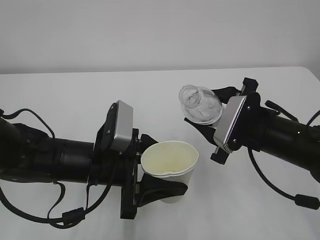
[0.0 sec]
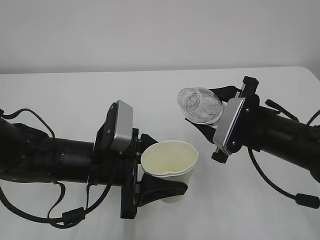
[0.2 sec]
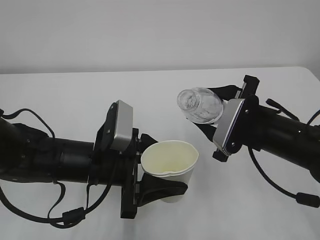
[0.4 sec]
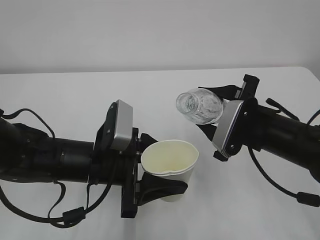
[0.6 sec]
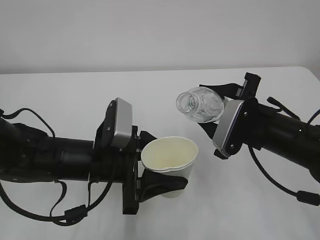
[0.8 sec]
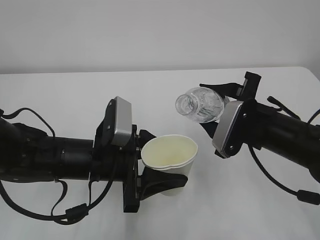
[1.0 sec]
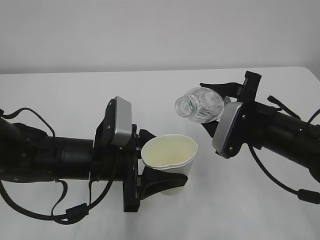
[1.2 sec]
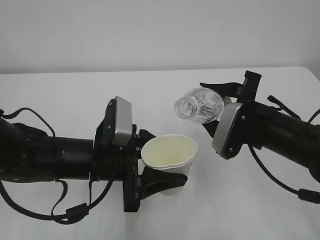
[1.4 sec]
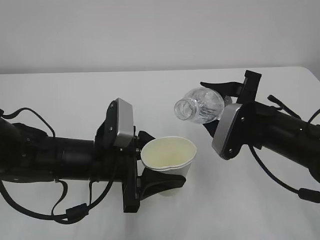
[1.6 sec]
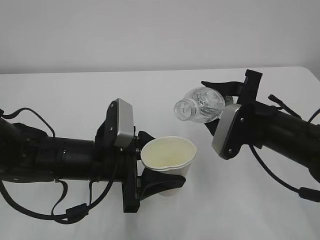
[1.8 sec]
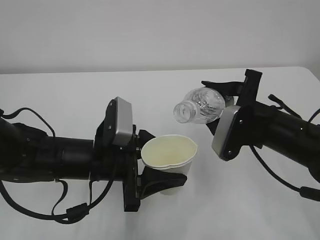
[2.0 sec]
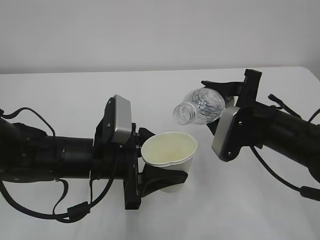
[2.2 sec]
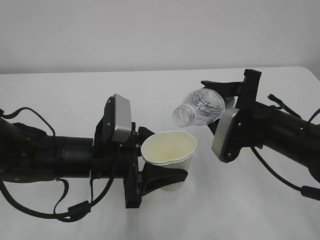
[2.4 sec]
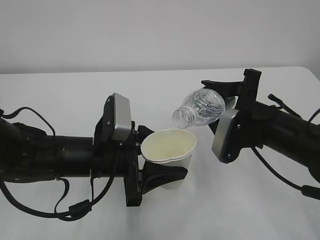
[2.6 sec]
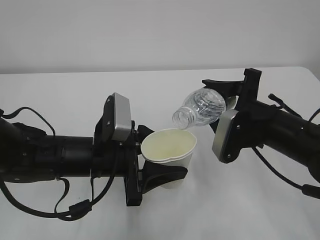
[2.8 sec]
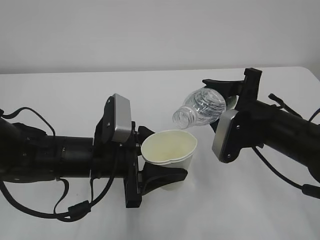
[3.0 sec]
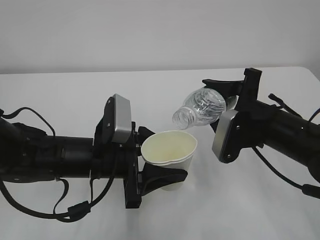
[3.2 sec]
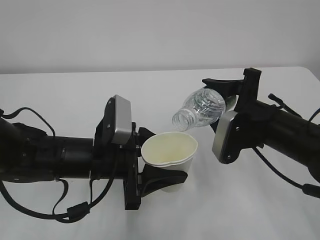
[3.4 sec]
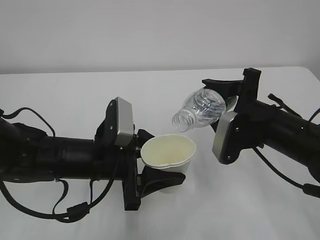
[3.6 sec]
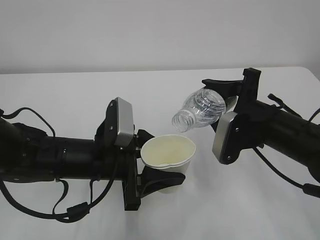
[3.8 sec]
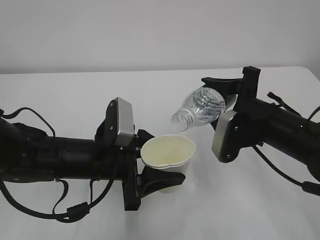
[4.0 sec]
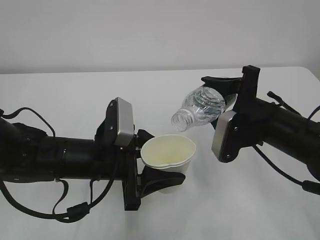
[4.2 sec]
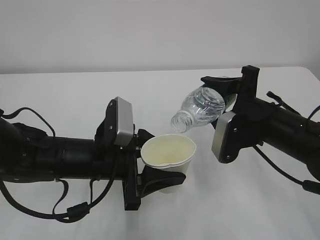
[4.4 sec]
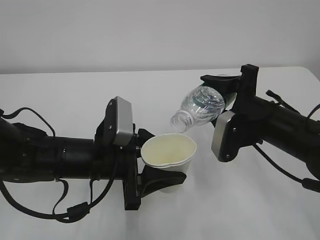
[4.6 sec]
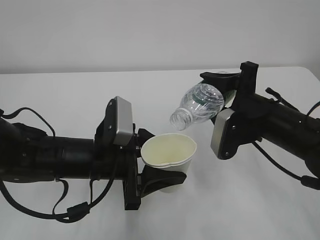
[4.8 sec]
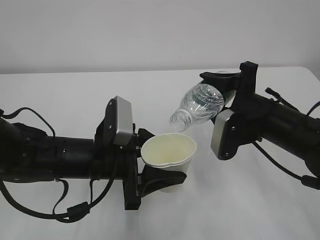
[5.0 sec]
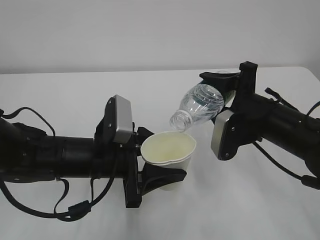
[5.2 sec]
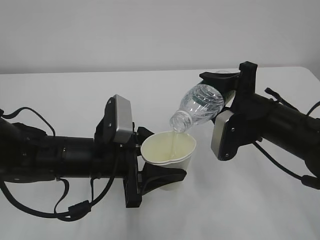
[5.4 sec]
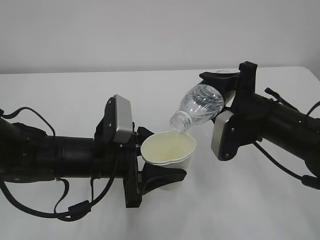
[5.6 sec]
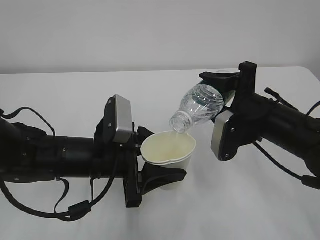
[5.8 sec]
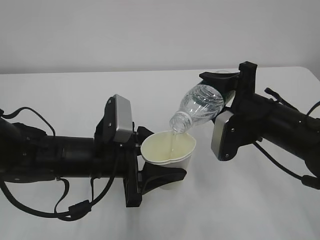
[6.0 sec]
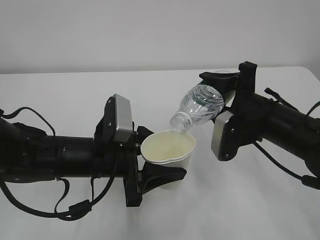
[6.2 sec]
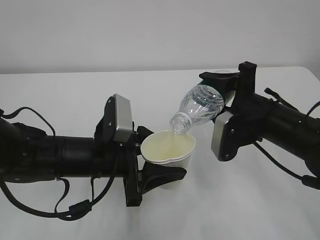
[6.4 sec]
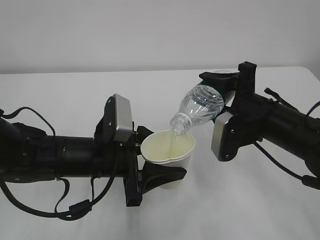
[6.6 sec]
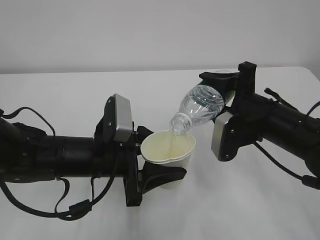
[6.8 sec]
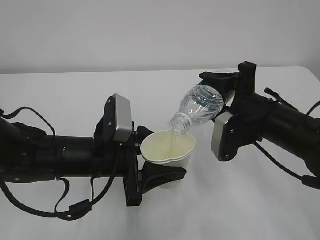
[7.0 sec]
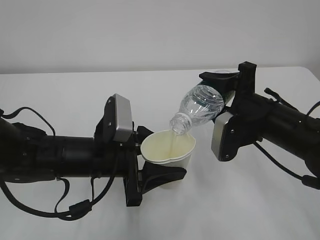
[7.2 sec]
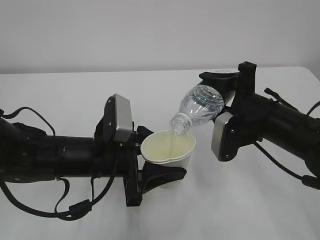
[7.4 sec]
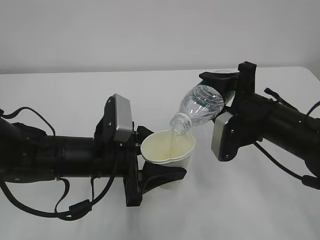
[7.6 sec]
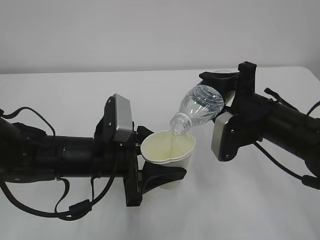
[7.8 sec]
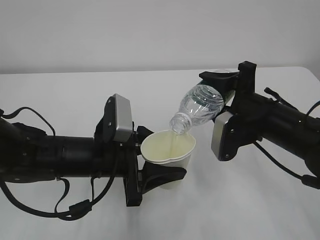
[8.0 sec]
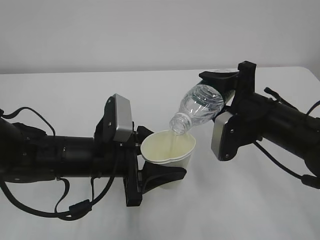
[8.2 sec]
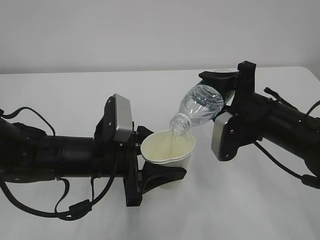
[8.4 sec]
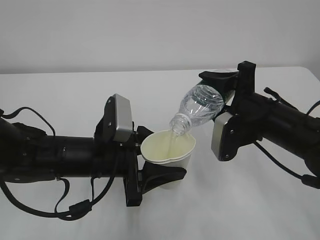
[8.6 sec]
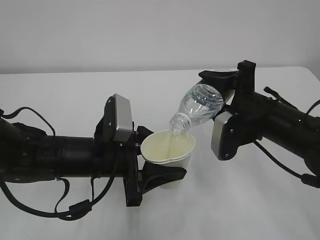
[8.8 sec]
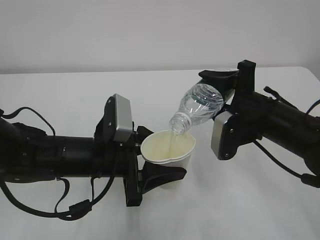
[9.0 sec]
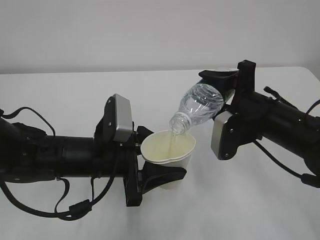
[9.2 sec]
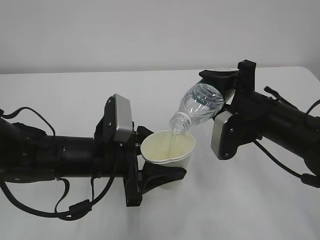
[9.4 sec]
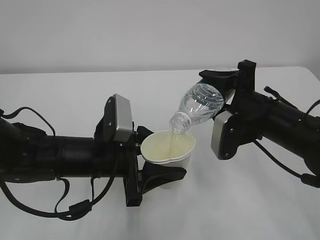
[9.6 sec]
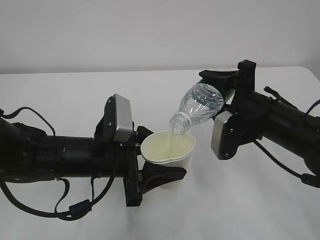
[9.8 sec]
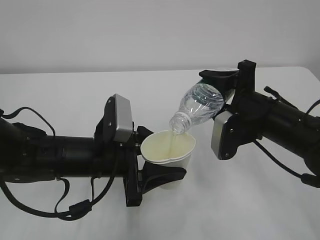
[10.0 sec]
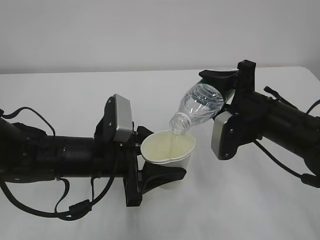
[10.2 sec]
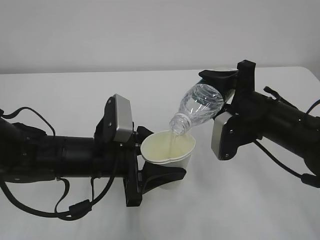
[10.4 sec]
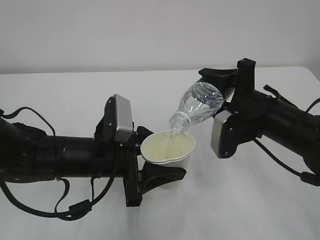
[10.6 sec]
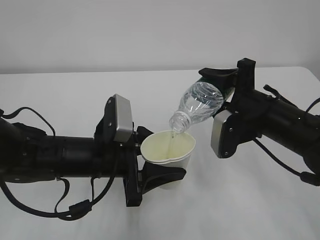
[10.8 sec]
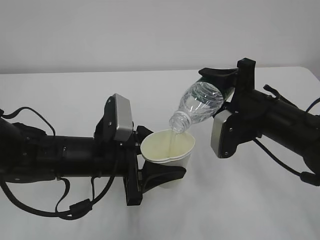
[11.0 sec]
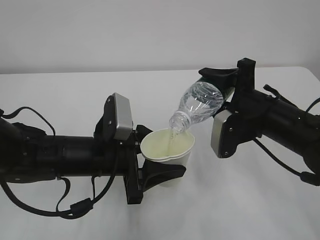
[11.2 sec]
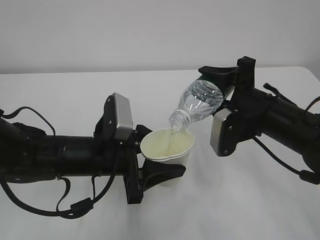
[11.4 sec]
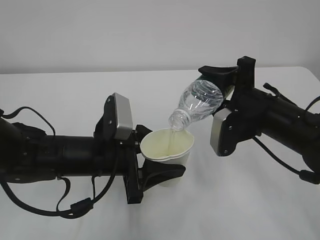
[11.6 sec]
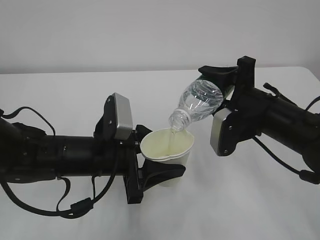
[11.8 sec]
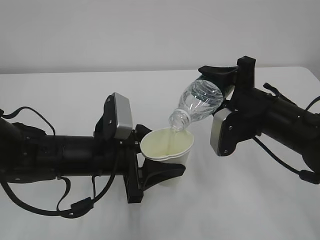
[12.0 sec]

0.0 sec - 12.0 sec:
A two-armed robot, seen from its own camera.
0.0 sec - 1.6 sec: The grippers move only a little.
1.6 sec - 4.4 sec: The grippers move only a little.
4.4 sec - 6.0 sec: The grippers stay close to where they were, moving slightly.
6.0 sec - 12.0 sec: Both grippers stay about where they are.

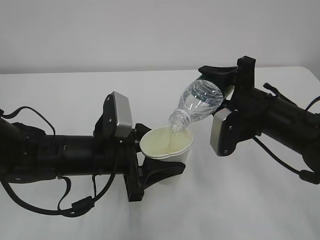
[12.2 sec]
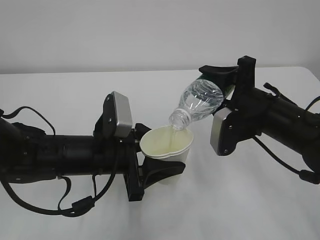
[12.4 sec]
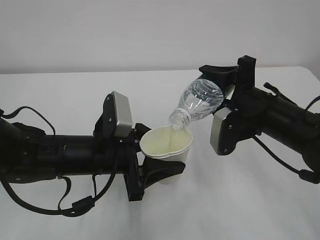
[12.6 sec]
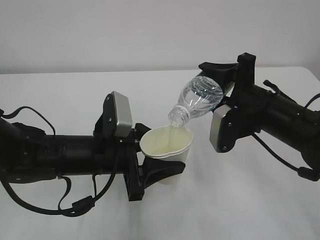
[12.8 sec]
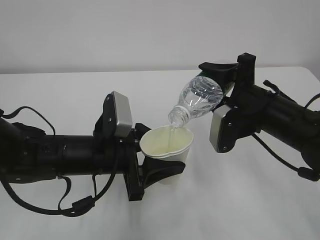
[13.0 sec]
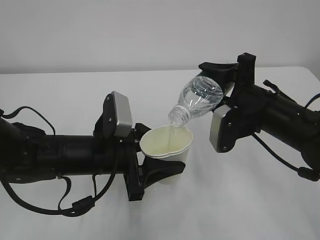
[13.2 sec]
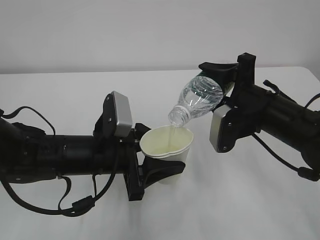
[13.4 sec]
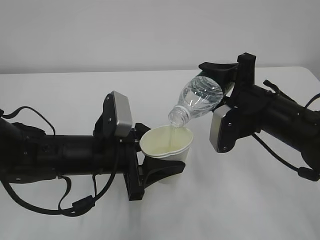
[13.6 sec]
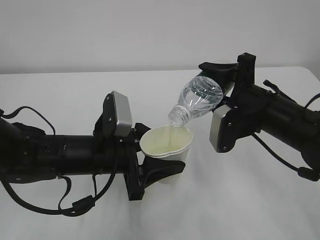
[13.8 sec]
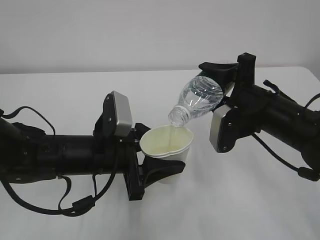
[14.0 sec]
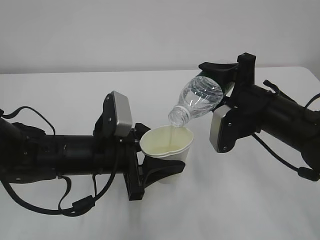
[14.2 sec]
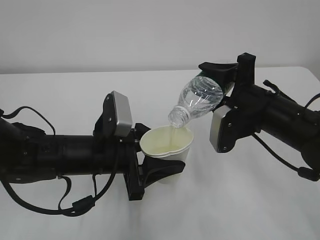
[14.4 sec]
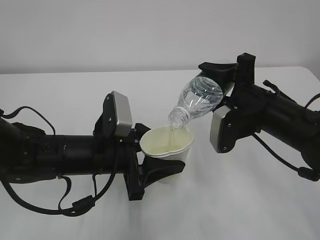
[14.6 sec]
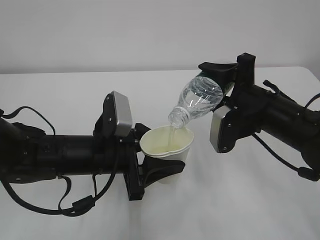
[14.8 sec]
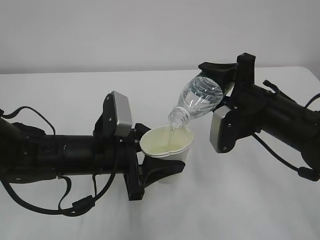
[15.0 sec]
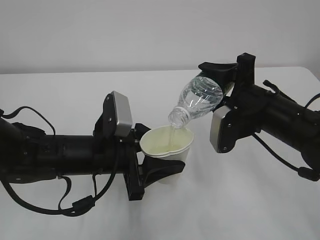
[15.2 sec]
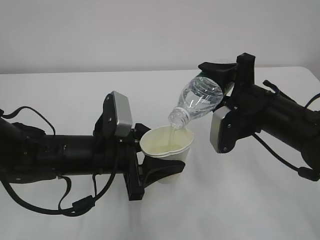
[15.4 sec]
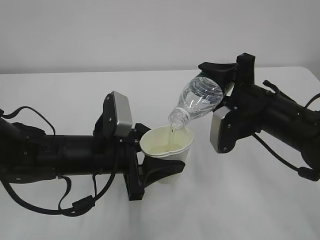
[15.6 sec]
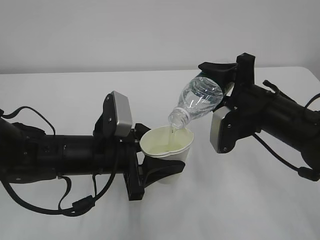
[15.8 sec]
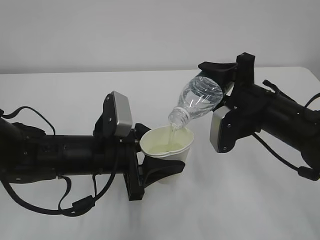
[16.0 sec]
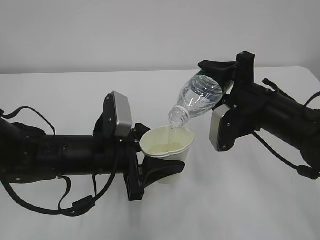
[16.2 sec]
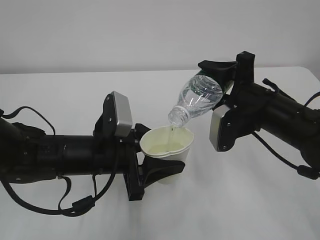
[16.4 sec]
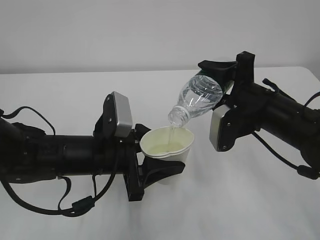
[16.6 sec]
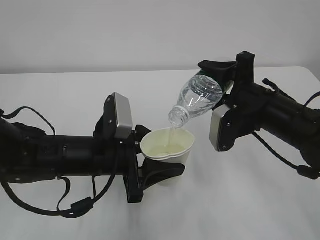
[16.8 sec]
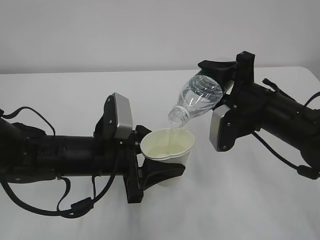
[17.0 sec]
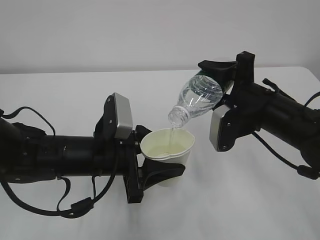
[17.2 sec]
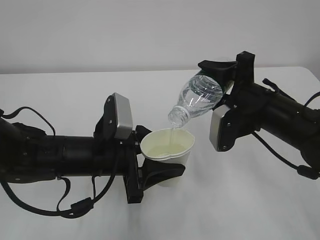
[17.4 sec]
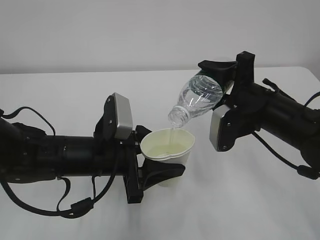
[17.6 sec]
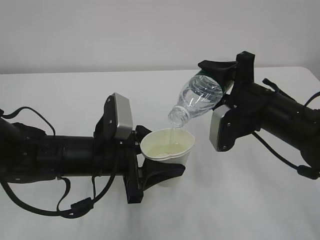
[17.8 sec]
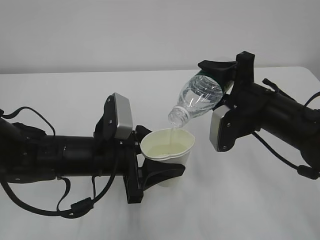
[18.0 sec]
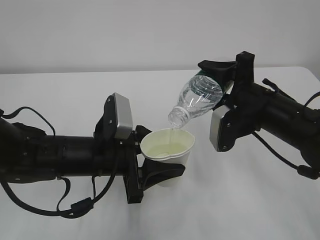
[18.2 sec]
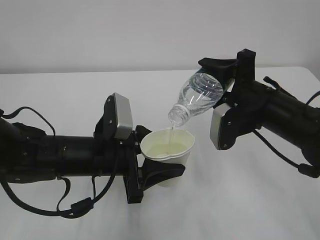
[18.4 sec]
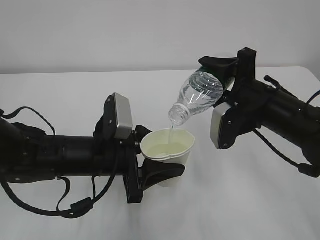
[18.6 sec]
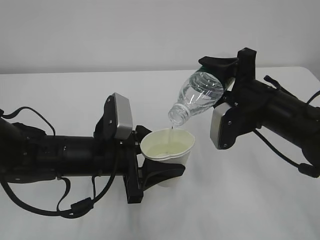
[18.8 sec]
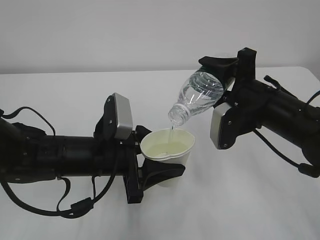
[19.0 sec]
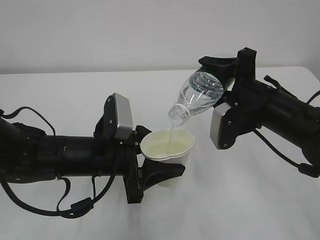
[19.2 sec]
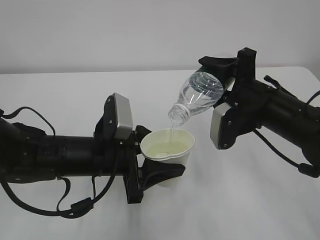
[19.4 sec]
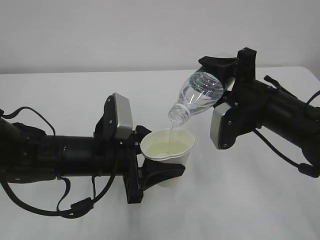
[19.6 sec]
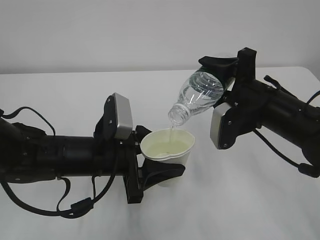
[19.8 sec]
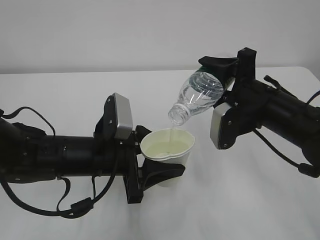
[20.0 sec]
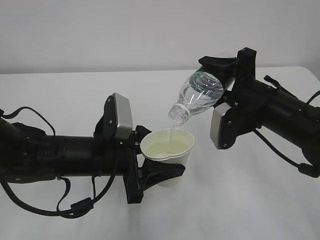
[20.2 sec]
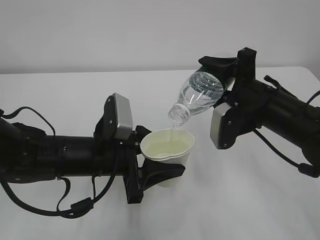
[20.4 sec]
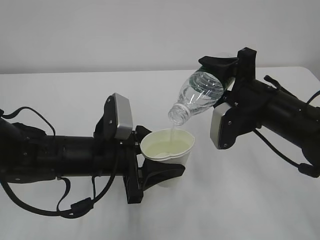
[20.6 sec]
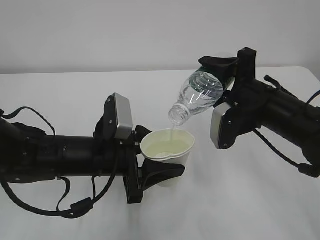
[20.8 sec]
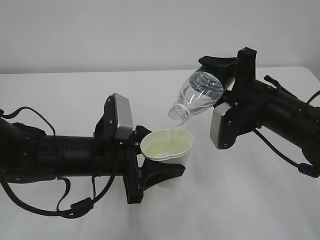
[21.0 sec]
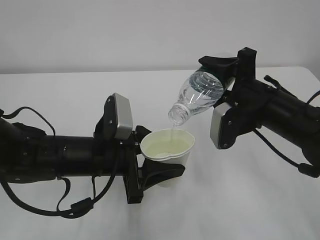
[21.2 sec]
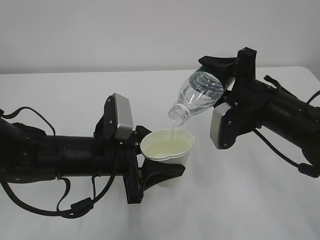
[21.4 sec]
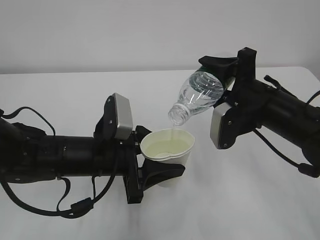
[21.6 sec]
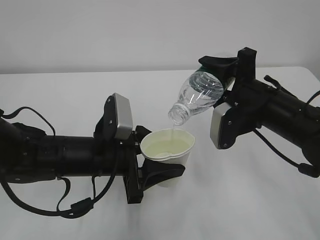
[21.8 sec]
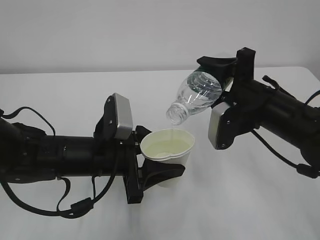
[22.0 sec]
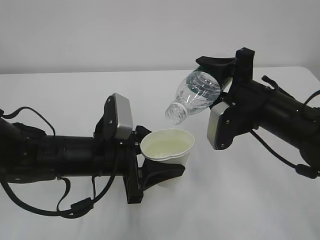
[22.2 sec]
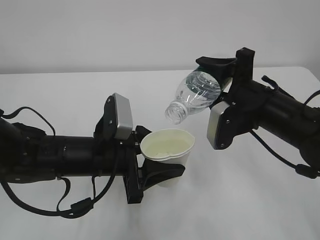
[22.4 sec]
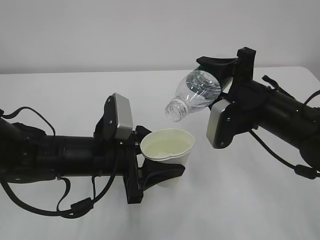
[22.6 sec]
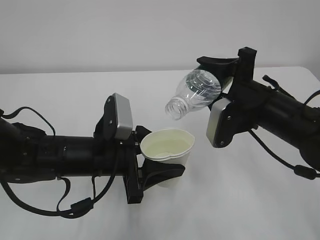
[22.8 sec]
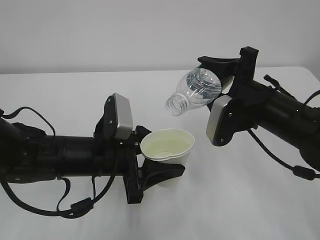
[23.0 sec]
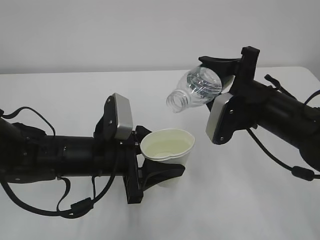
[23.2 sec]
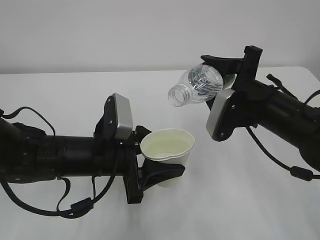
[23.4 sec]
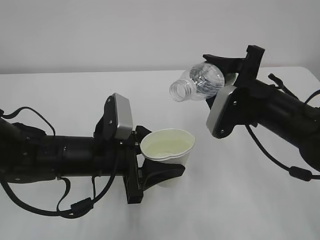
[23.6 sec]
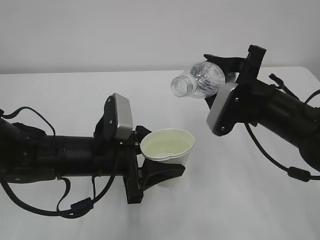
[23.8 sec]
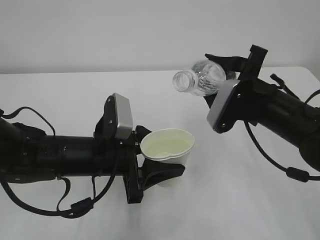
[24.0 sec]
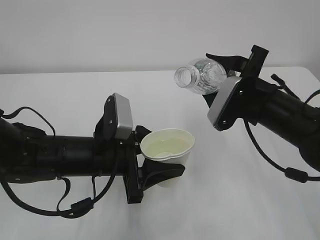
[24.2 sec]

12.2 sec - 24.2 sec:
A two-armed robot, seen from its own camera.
12.2 sec - 21.2 sec: Both grippers stay about where they are.
21.2 sec - 22.6 sec: The grippers stay close to where they were, moving slightly.
